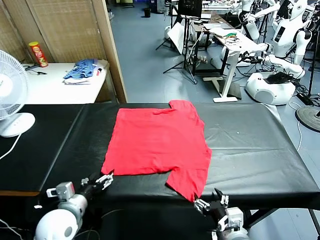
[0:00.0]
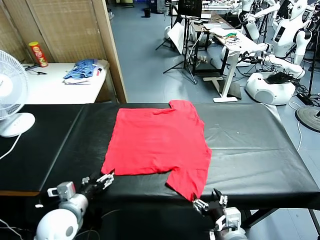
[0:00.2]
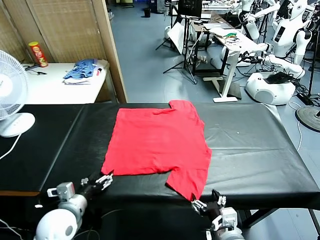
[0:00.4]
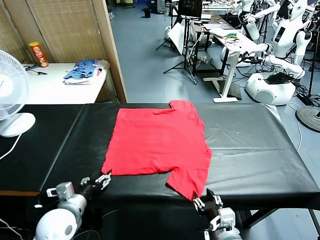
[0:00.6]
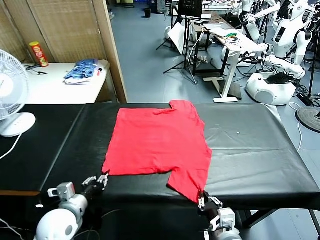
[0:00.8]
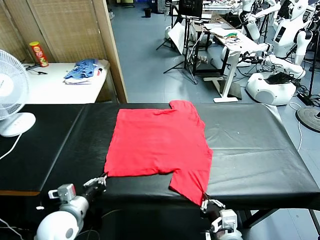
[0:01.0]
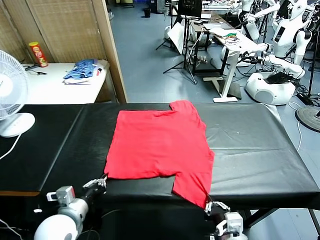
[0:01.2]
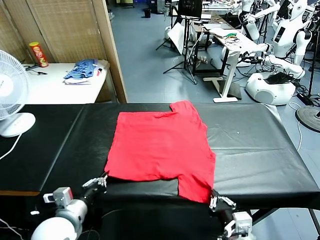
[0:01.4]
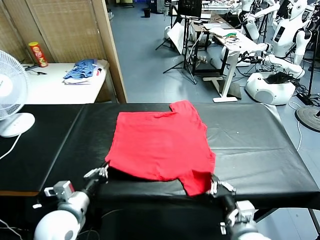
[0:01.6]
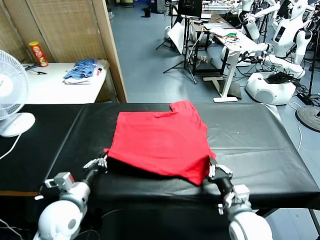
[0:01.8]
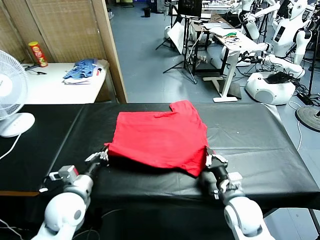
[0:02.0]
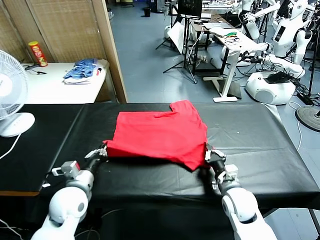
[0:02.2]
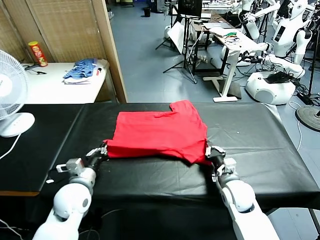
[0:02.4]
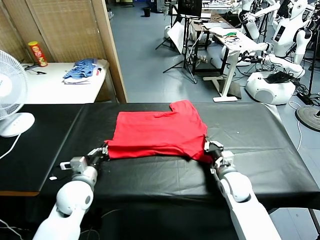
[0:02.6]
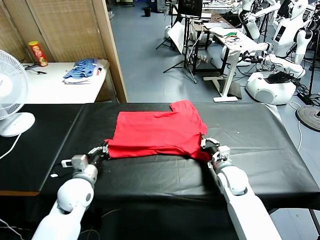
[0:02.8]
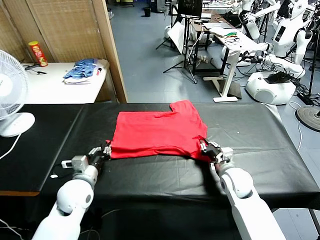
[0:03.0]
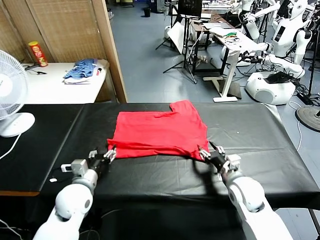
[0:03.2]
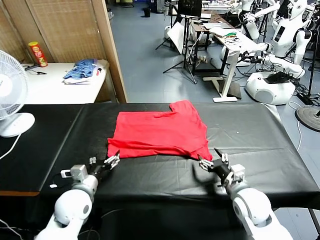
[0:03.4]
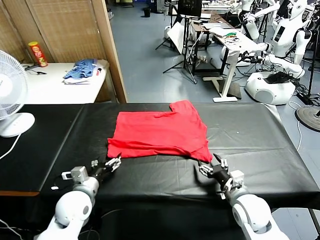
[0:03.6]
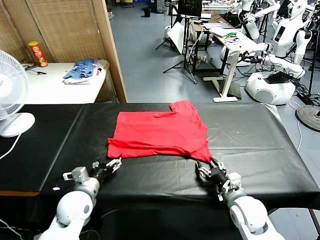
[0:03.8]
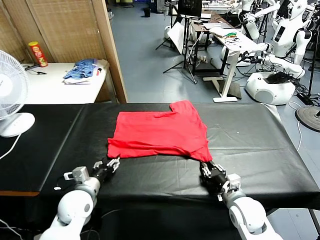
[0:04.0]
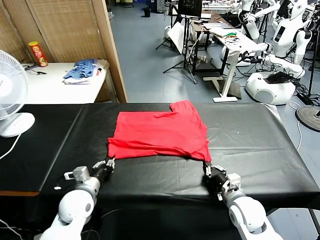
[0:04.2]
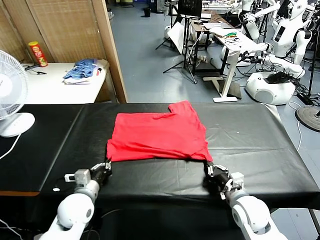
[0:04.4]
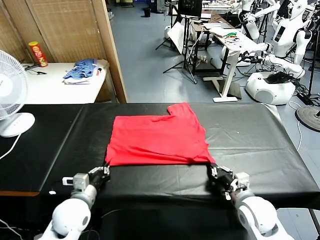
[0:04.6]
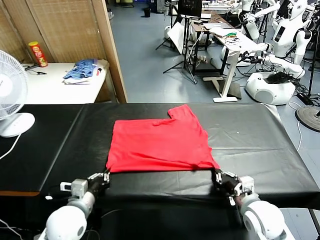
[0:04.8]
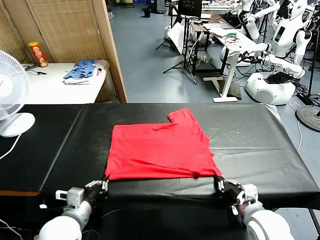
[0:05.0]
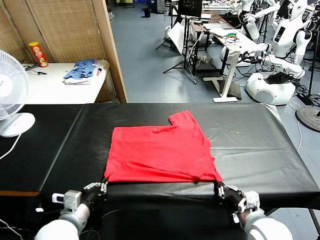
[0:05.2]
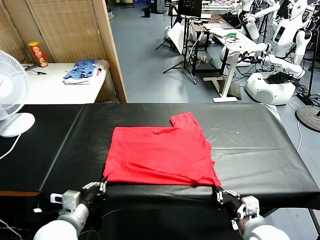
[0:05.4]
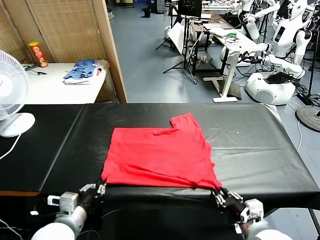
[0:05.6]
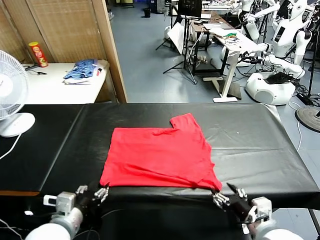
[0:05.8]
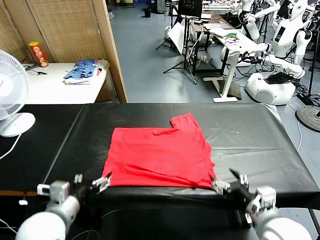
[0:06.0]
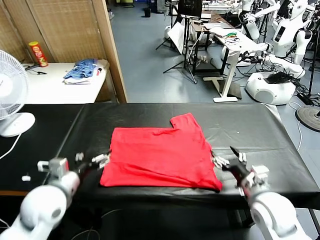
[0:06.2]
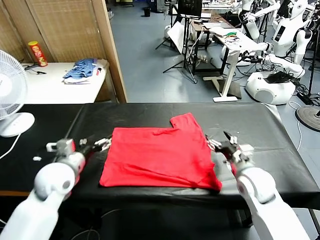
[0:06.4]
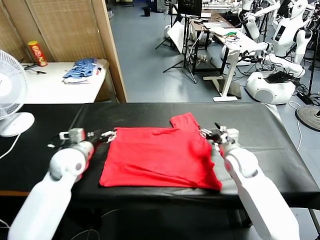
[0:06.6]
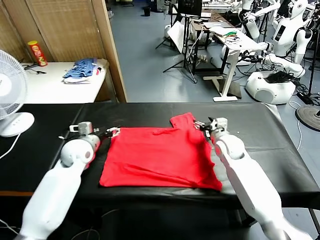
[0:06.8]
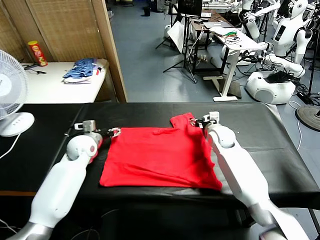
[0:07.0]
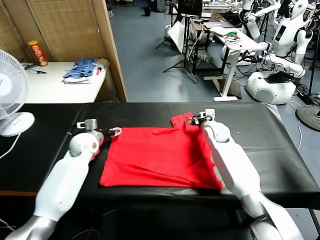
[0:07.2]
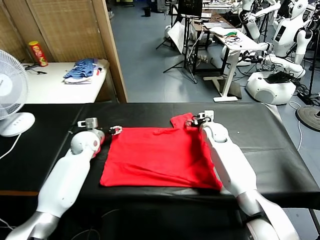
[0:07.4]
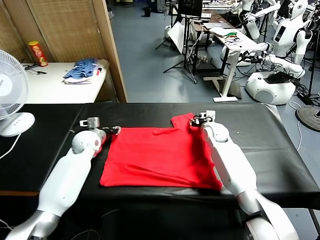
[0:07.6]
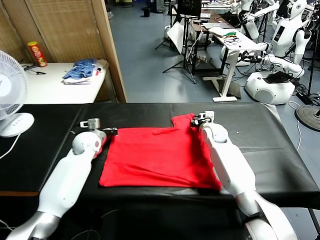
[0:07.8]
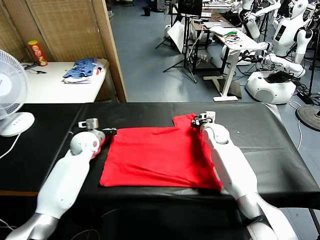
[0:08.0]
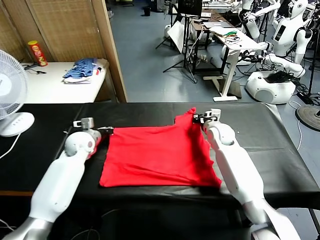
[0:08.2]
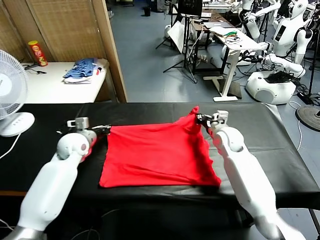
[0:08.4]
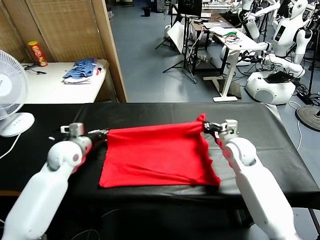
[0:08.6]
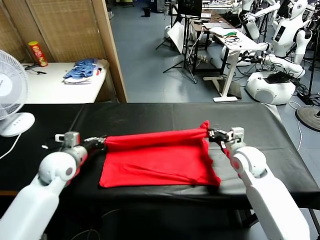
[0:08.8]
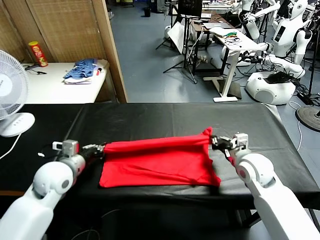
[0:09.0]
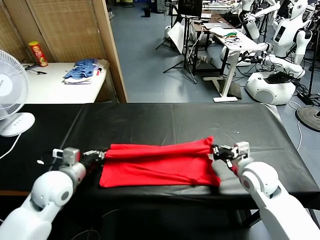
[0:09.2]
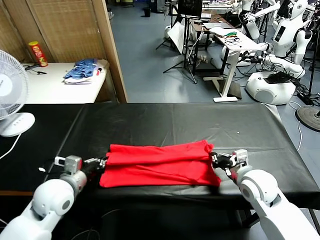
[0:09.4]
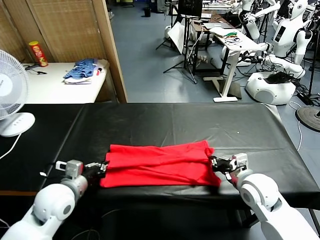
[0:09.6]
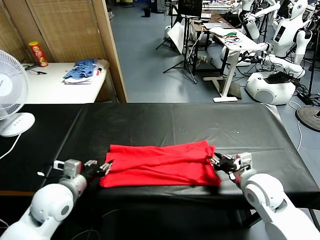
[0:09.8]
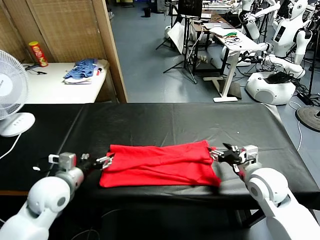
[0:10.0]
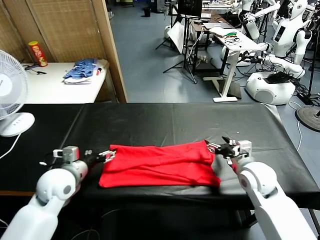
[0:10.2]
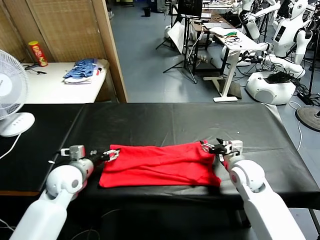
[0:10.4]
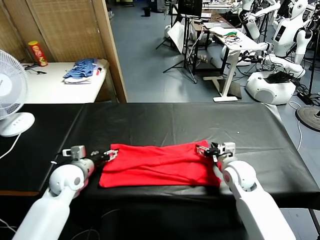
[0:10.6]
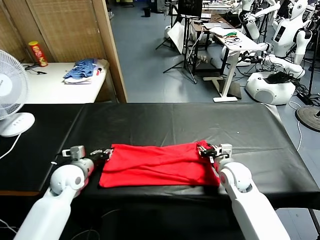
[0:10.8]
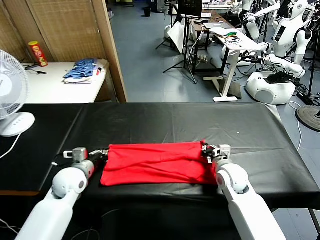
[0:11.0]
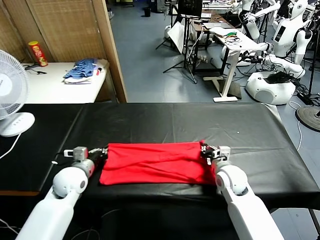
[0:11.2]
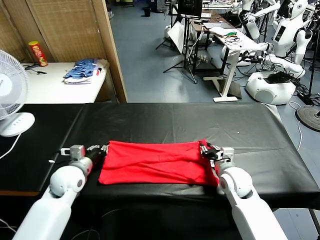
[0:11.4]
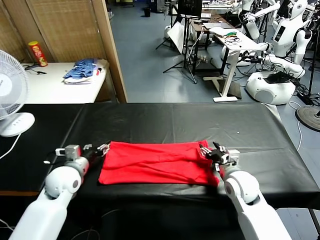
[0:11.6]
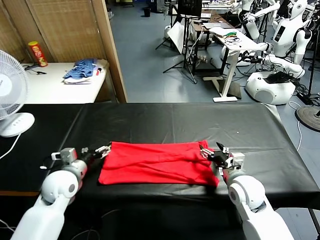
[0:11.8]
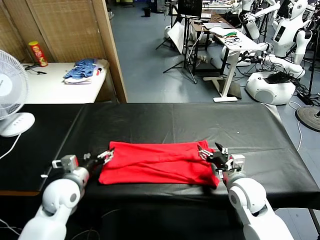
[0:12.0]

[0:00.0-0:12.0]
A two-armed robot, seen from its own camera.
Task of the whole recording: fold and organize the clothes.
Step, 0:00.0 to 0:01.0: use both grippers simultaneously to clamp the lower edge of the clothing fabric.
Step, 0:01.2 to 0:03.0: use both grippers to drag the lower edge of the fabric forward and fold it over the upper edge.
Step, 0:03.2 to 0:05.8: Drag the clothes downward with both gripper.
Step, 0:06.0 to 0:08.0: use both grippers simultaneously to clamp the upper edge of the clothing fabric.
Step, 0:08.2 to 0:10.0: use both grippers to drag the upper edge of the fabric backward and fold it over the lower edge.
0:01.6 to 0:03.0: Both grippers move forward, approximately 5 cm. The right gripper opens; the left gripper opens its fingers.
0:03.0 to 0:04.4: The left gripper closes up. Meanwhile the right gripper closes its fingers.
0:04.4 to 0:06.0: The right gripper moves upward, approximately 5 cm, travels backward and back again, approximately 10 cm each way, and opens its fingers. The left gripper shifts roughly 15 cm upward and backward, and opens its fingers.
0:06.0 to 0:07.6: The two grippers go roughly 30 cm forward. The left gripper closes its fingers. The right gripper closes its fingers.
0:07.6 to 0:09.0: The grippers both shift backward by approximately 20 cm.
0:09.0 to 0:10.4: The left gripper opens. Meanwhile the right gripper shifts approximately 5 cm downward, and opens up.
0:10.4 to 0:12.0: The left gripper closes and opens again, while the right gripper travels backward by some 10 cm, and closes, then opens again.

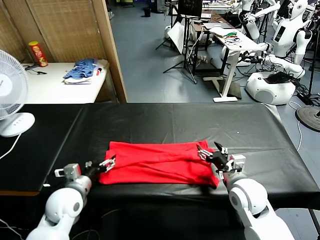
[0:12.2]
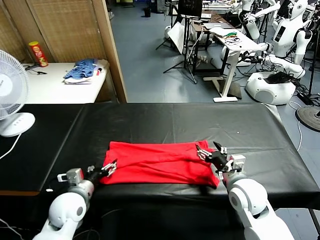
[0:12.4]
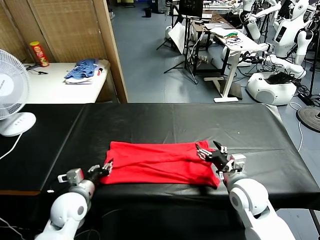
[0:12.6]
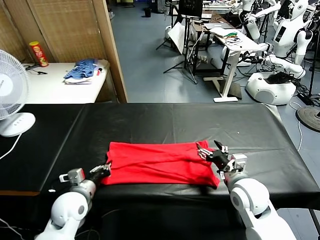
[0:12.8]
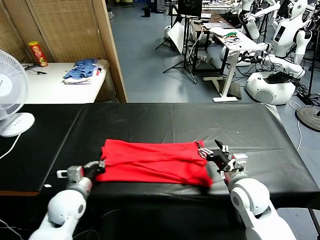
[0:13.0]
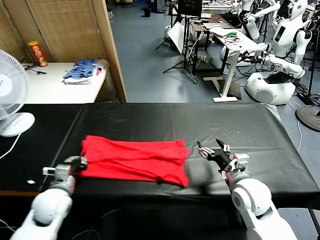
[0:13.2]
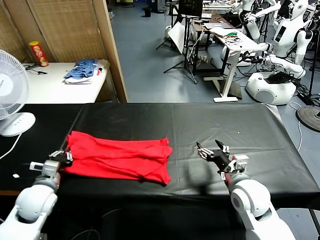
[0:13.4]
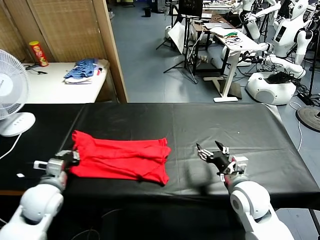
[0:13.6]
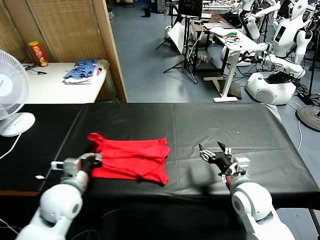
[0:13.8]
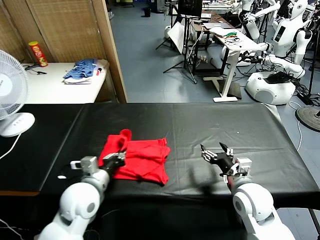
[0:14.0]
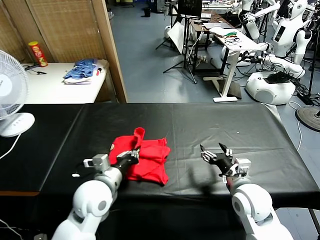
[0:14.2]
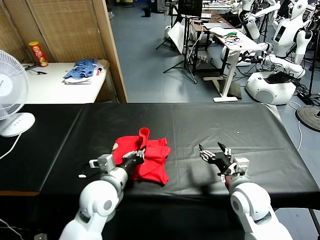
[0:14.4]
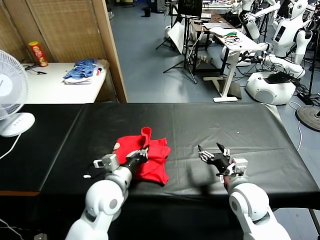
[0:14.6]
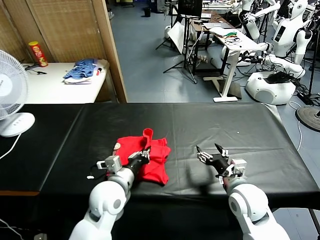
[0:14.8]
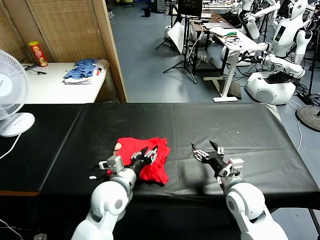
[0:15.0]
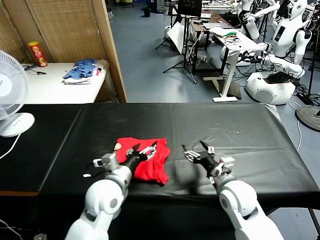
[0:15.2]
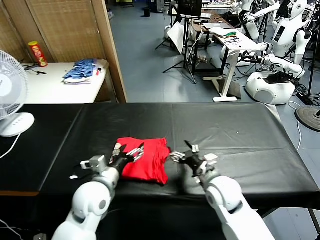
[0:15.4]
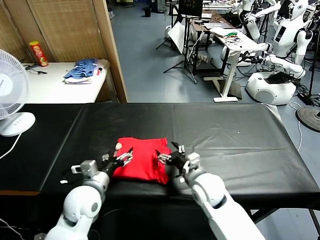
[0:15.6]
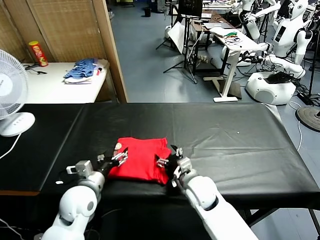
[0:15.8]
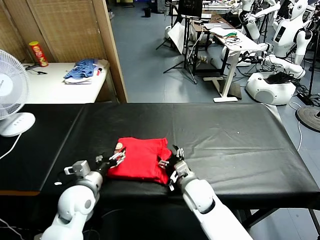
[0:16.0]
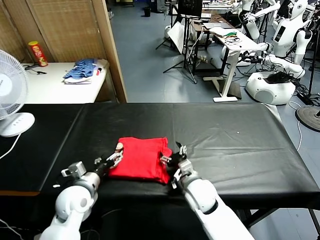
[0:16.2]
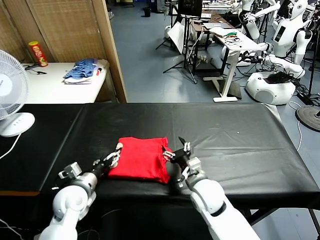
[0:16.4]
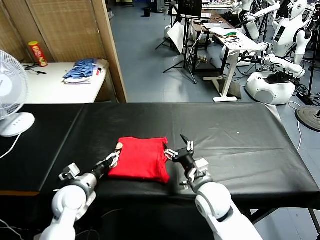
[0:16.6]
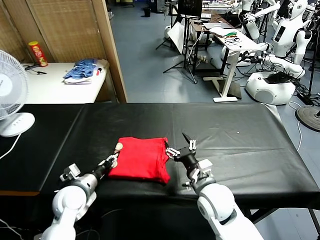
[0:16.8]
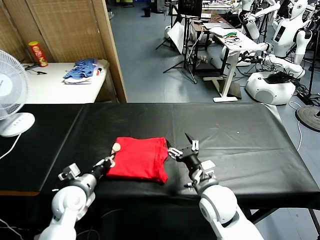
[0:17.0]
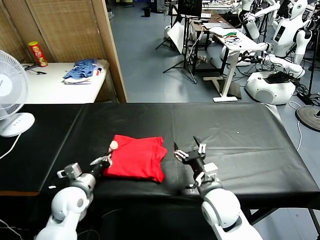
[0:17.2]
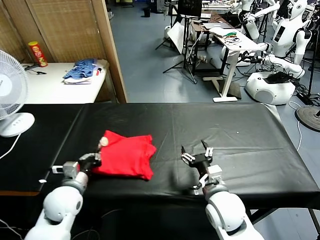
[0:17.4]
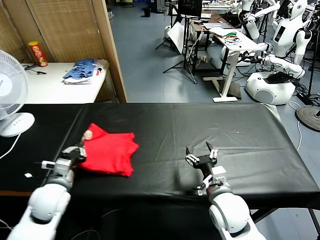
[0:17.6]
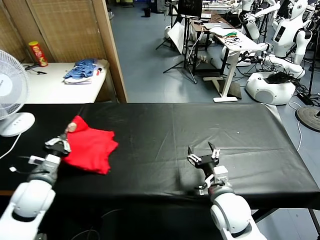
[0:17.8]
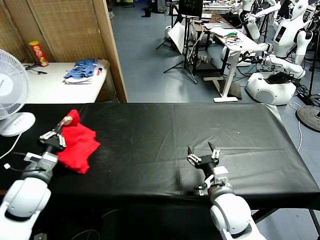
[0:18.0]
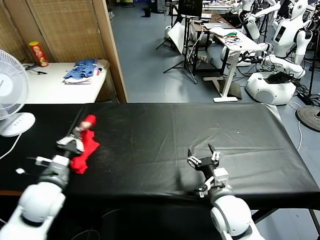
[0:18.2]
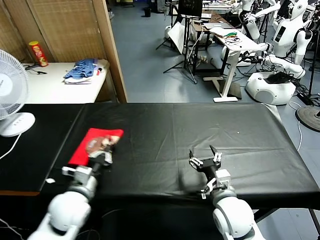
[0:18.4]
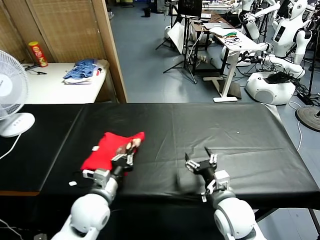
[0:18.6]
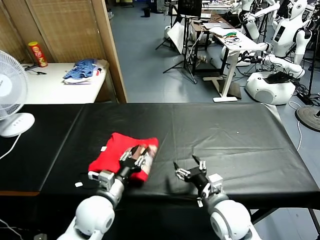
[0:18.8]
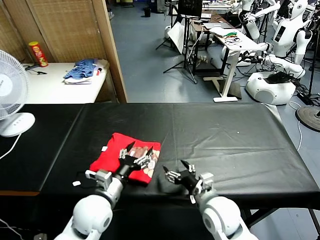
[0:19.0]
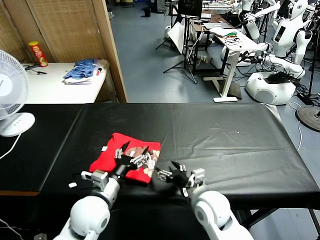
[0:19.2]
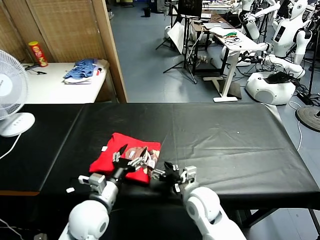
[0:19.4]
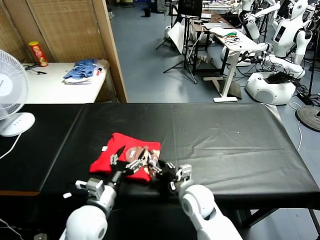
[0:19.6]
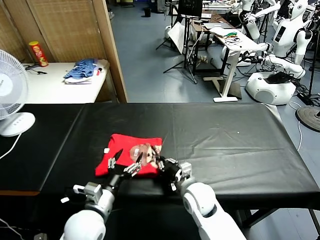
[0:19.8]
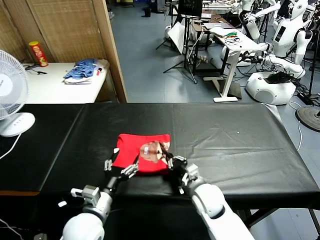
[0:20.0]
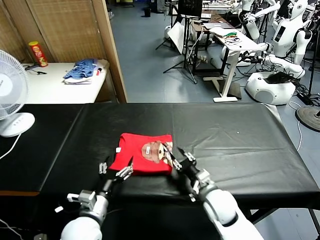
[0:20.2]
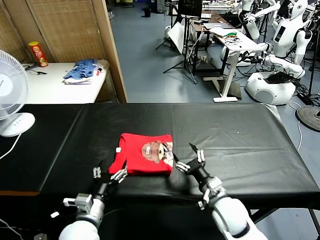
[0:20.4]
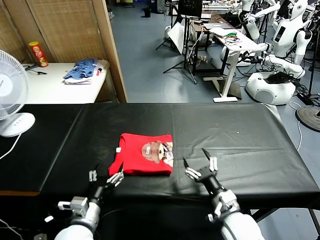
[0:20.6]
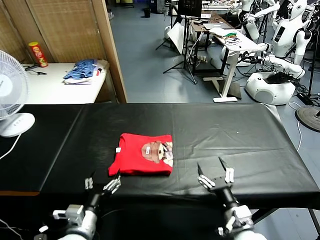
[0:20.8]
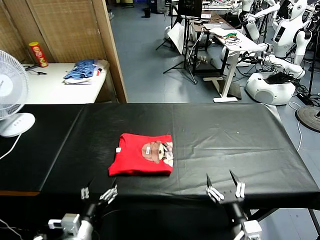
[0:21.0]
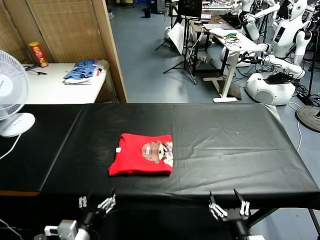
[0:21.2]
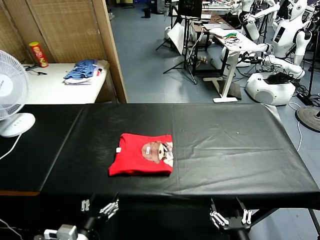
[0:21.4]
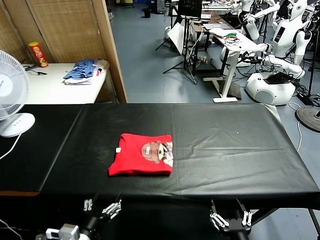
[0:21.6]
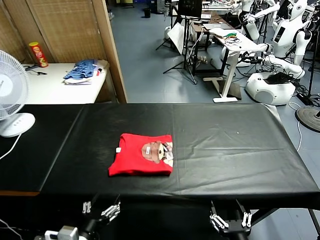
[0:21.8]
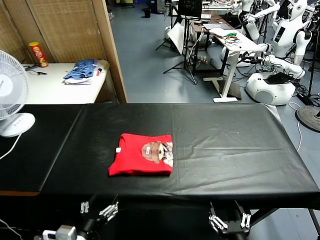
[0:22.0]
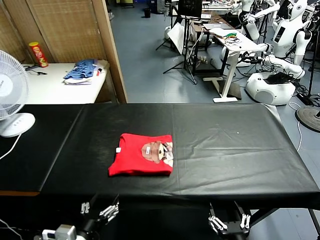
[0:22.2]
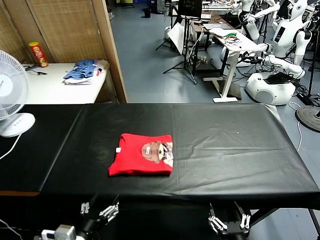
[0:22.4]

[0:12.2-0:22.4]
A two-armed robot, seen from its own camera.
Task of the whole recording: fold and organize the clothes.
Step, 0:13.0 to 0:15.0: use the left gripper to drag the left edge of the fabric to the left and folds it over the right edge.
Step, 0:15.4 to 0:18.8: Flip the folded clothes over with left gripper.
Step, 0:19.0 to 0:20.4: Drag the clothes to the center of the table.
0:12.2 to 0:13.6: The left gripper changes place by roughly 5 cm, and closes up.
0:13.6 to 0:15.2: The left gripper is displaced to the right by some 20 cm, and opens its fingers.
0:15.2 to 0:16.6: The left gripper moves to the left and downward, about 15 cm. Meanwhile the right gripper moves to the left, about 5 cm.
0:16.6 to 0:18.0: The right gripper ends up some 5 cm from where it was. Meanwhile the left gripper travels upward and to the left by approximately 10 cm, and closes.
0:18.0 to 0:19.4: The left gripper heads to the right, covering approximately 15 cm, and opens its fingers. The right gripper travels to the left by about 5 cm.
0:19.4 to 0:21.0: The left gripper shifts roughly 10 cm backward; the right gripper moves backward and to the right, approximately 20 cm, and closes, then opens again.
0:21.0 to 0:22.4: The right gripper goes approximately 10 cm backward. The left gripper shifts by some 5 cm.
